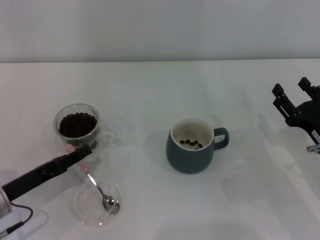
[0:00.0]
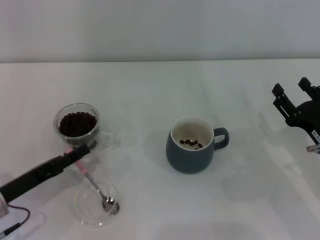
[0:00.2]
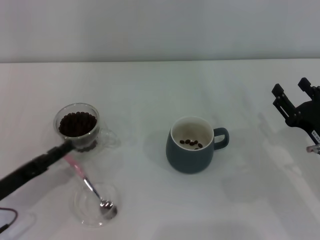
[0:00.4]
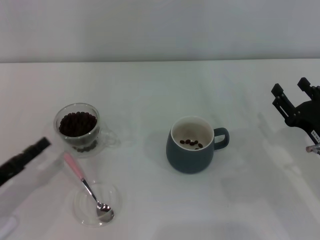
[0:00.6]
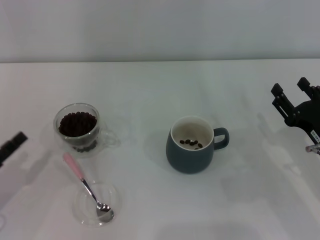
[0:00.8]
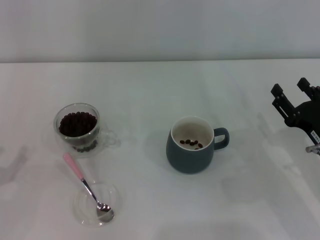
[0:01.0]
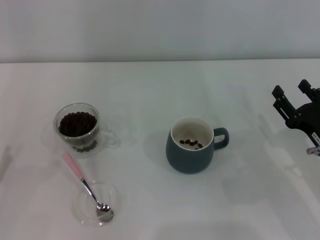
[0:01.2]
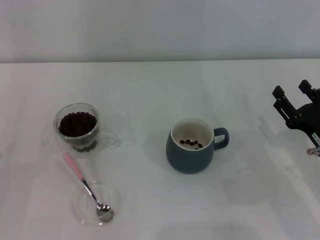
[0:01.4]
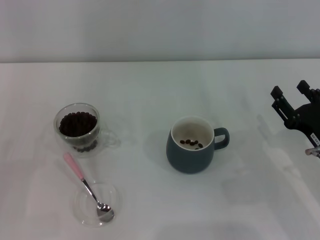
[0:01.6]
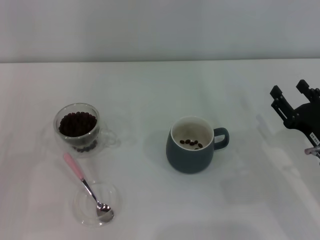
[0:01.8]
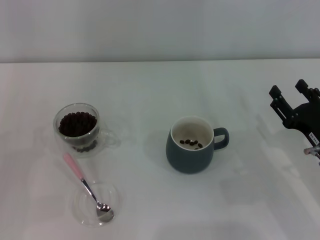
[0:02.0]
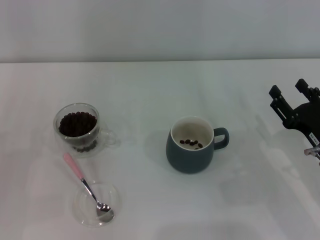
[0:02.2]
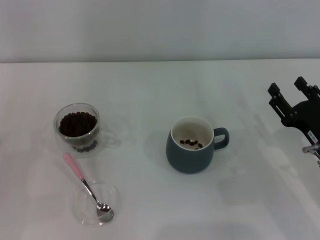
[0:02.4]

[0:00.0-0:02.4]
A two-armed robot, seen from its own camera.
Task of the whole recording: Use a pink spoon to take out the coffee beans from the glass and pour them into the gray cup.
0:00.0 to 0:01.2: The left gripper is displaced to the left and backward by some 10 cm, and opens up.
0:01.2 to 0:02.4: The grippers stay close to where they were, moving slightly.
